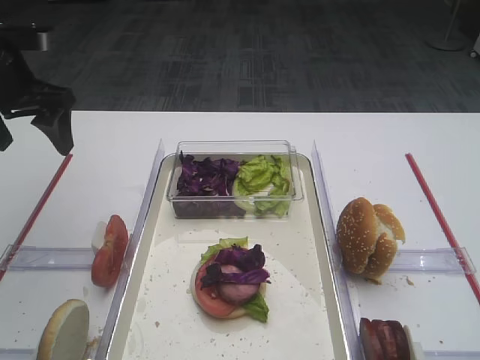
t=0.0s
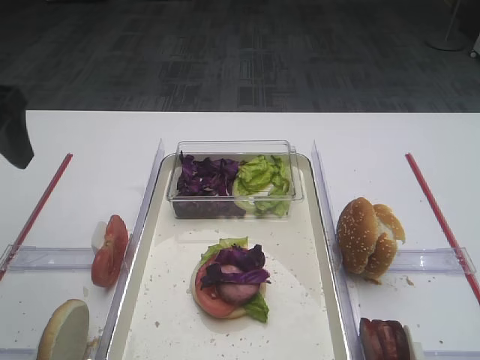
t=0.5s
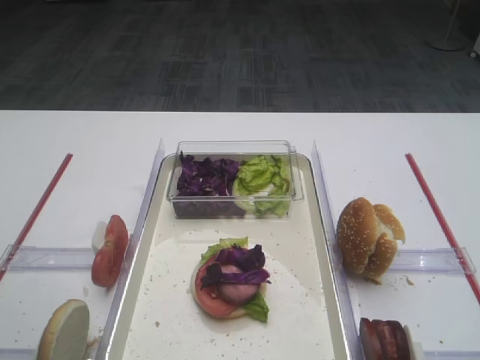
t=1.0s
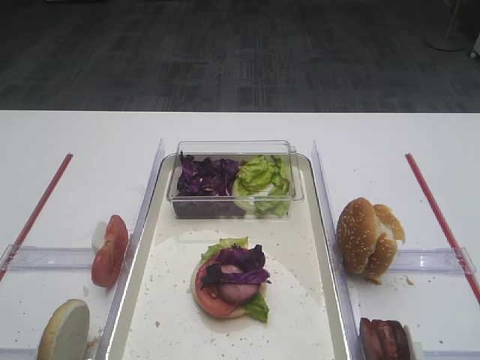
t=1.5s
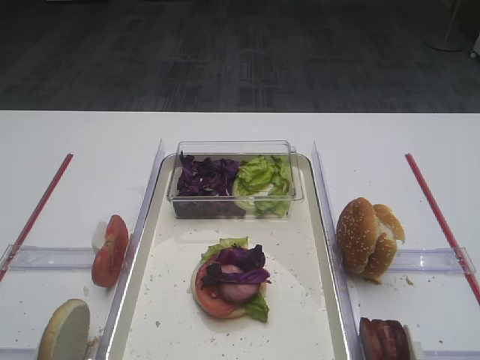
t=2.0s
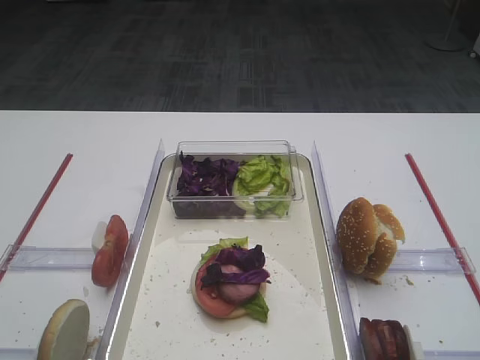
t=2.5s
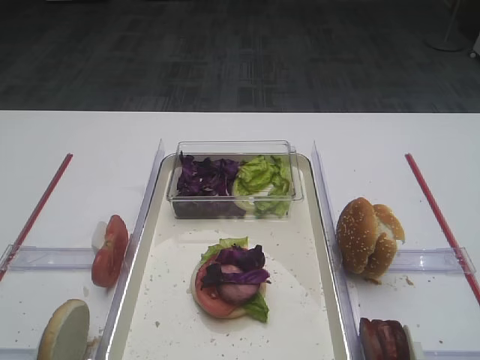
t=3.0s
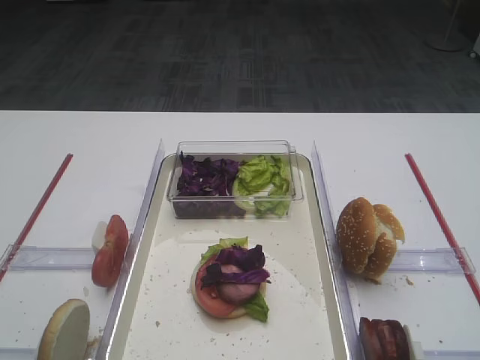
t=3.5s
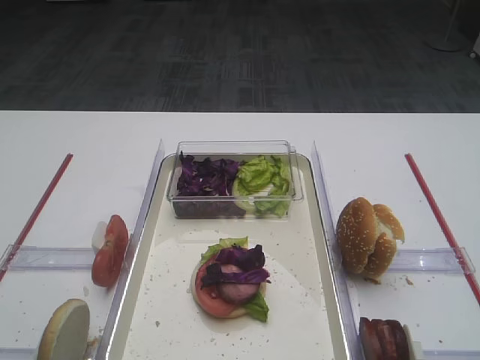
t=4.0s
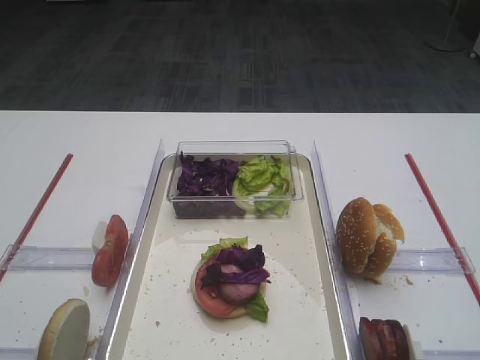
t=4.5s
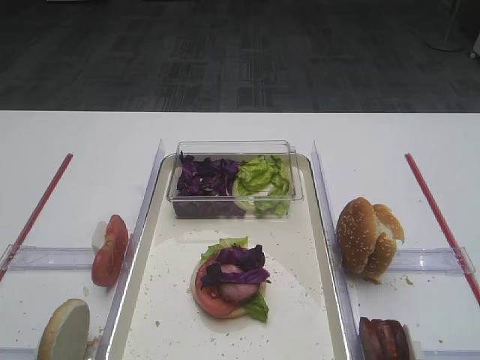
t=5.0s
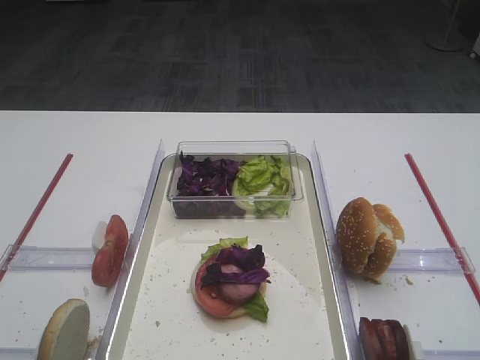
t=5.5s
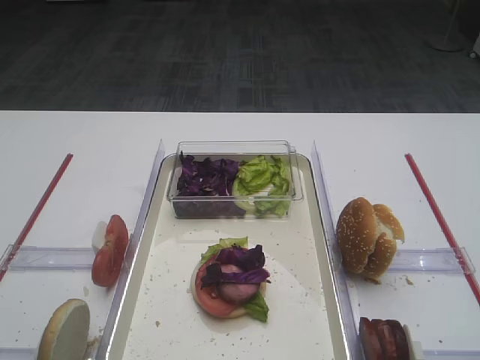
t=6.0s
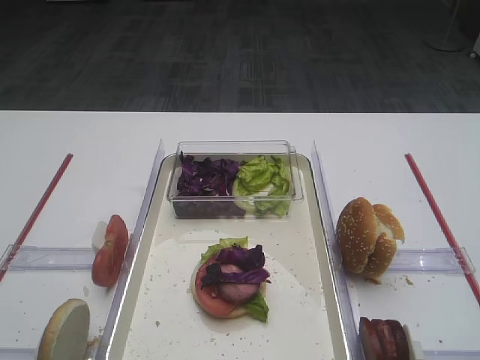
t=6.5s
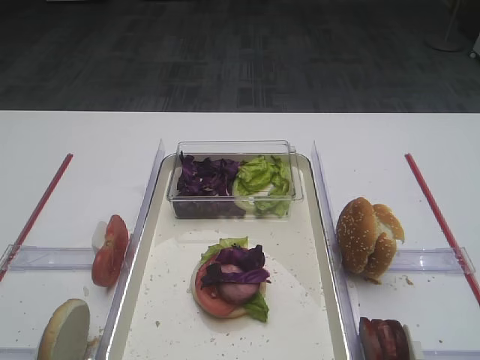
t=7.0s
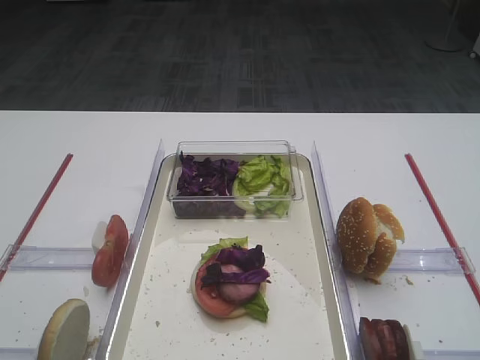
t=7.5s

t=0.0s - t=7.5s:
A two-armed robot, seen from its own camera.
t=0.0s - t=2.0s: The left gripper is displaced backward by roughly 35 cm.
t=4.0s - t=7.5s: Both grippers stay put.

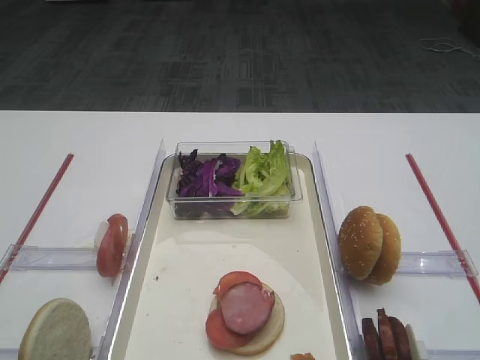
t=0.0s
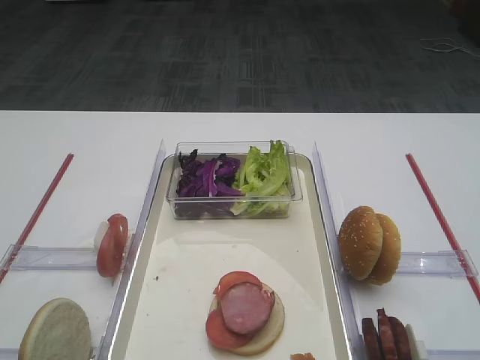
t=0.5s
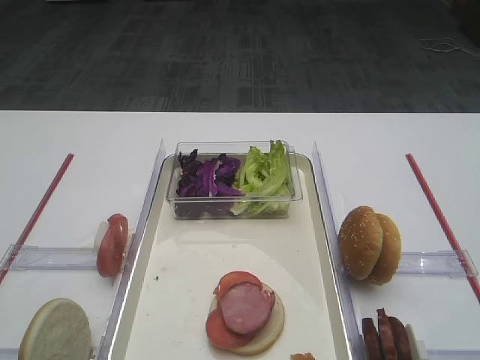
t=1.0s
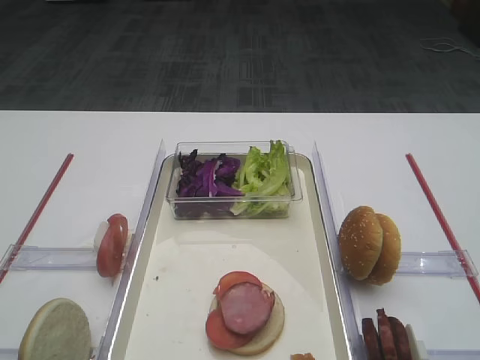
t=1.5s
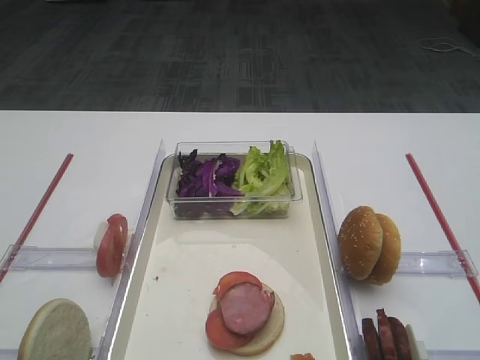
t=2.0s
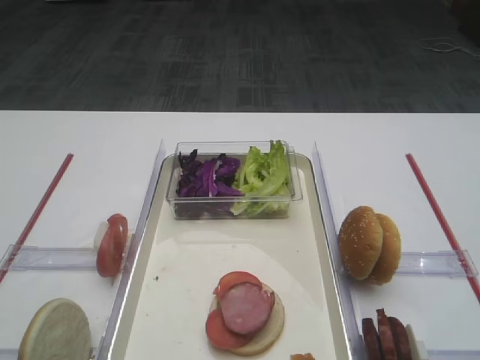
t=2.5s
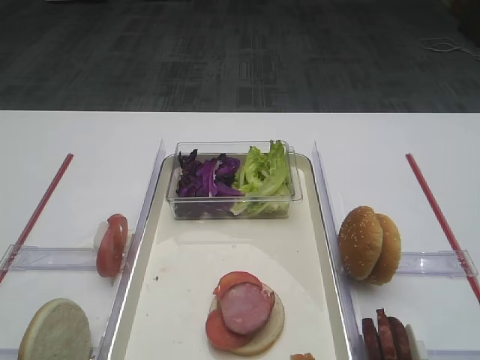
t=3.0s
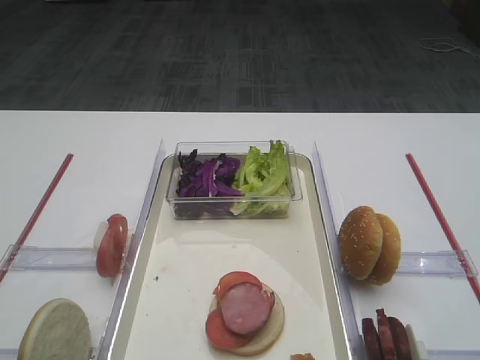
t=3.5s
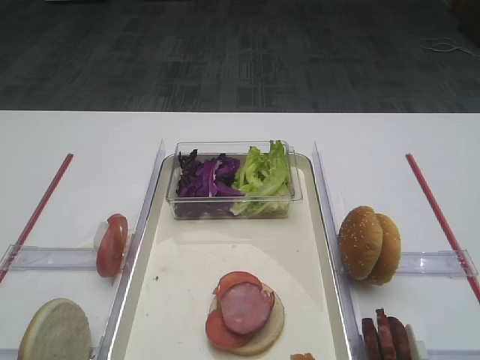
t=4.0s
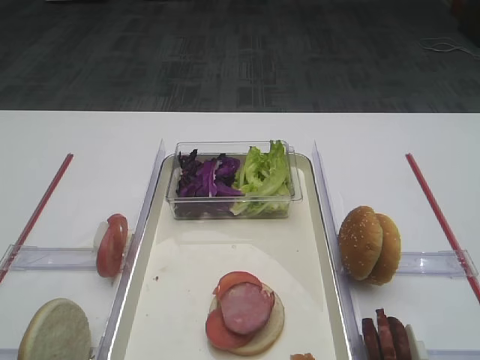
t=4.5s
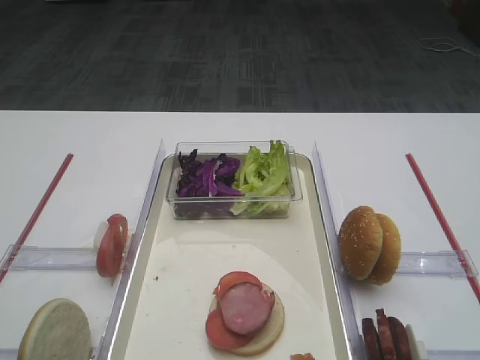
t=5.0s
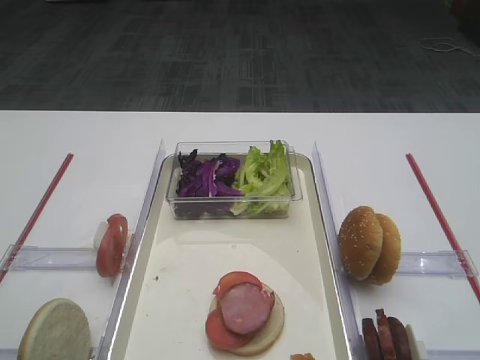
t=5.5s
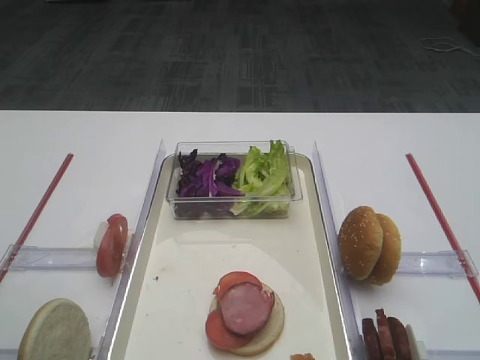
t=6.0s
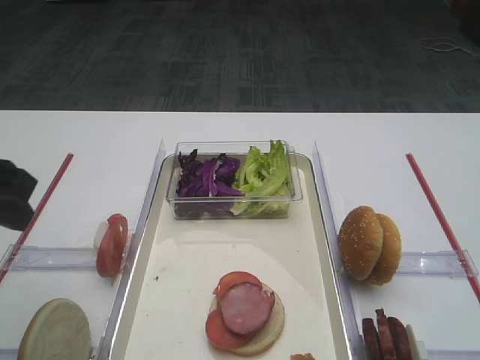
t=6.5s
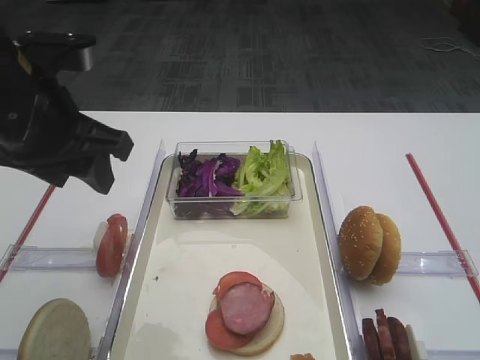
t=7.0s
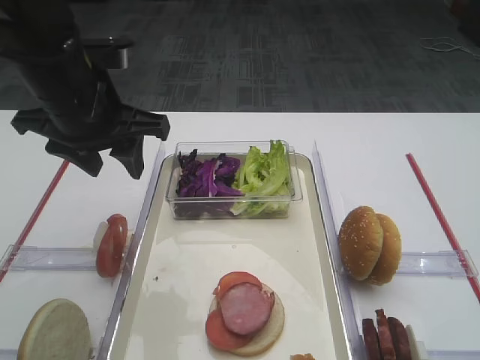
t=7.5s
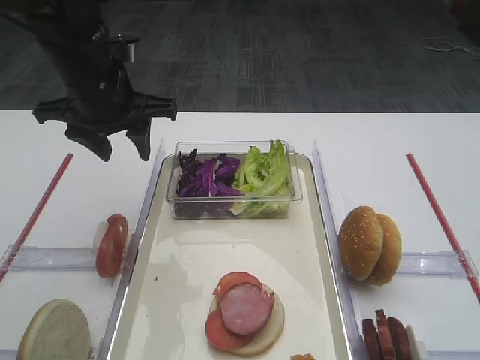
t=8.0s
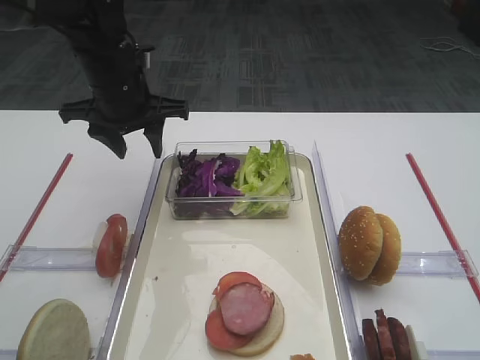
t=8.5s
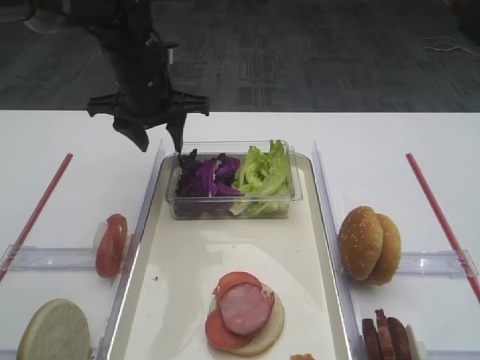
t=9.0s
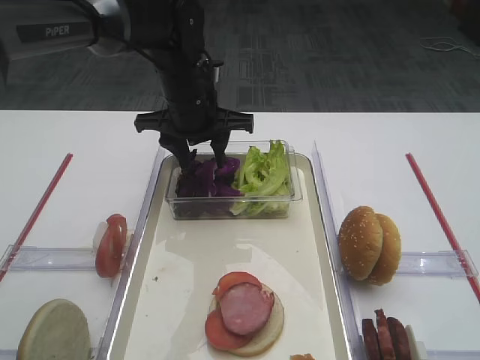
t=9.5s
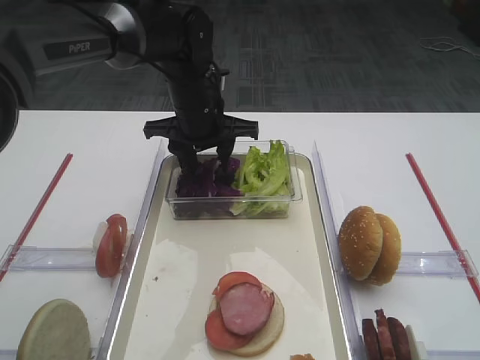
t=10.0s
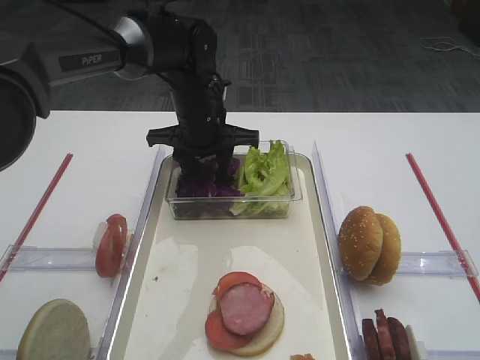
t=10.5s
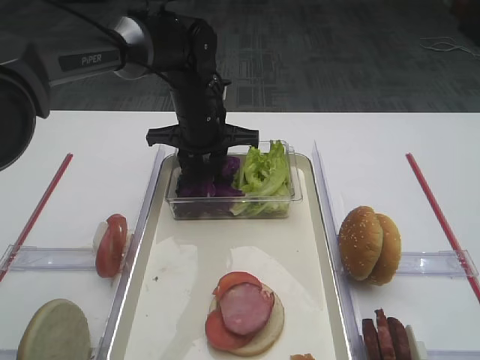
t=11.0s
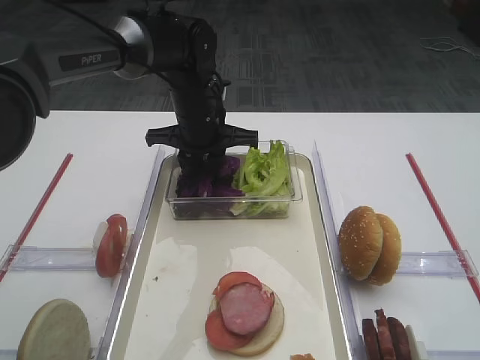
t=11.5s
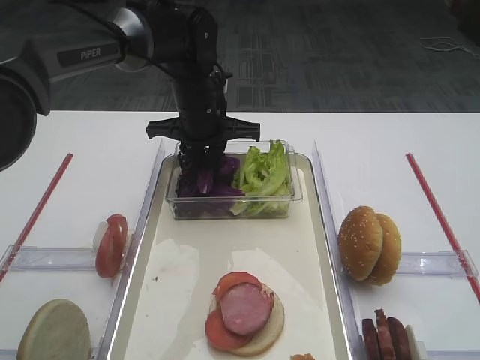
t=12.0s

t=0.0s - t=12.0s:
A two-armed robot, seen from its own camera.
t=2.0s - t=4.0s: The two grippers keep their place.
t=6.0s - t=8.0s: The left gripper moves forward and to the right, roughly 25 cm.
t=8.0s - t=10.0s: The right gripper closes up. The left gripper goes approximately 15 cm to the right, forward and downward.
t=10.0s - t=12.0s: The left gripper closes.

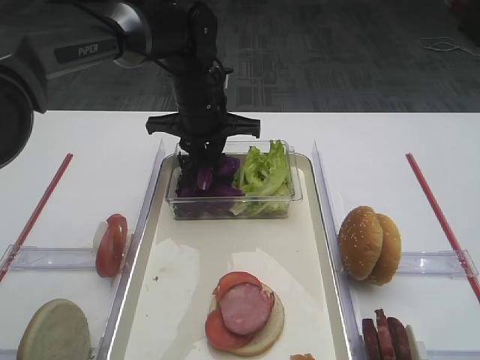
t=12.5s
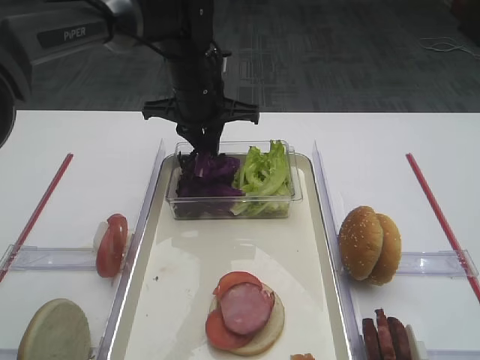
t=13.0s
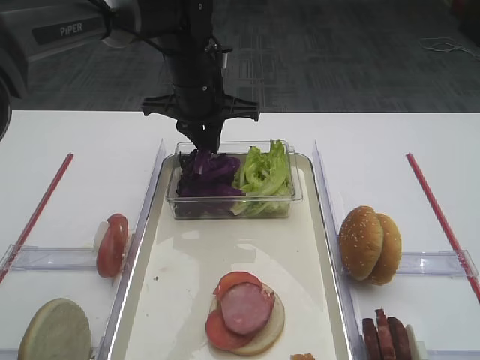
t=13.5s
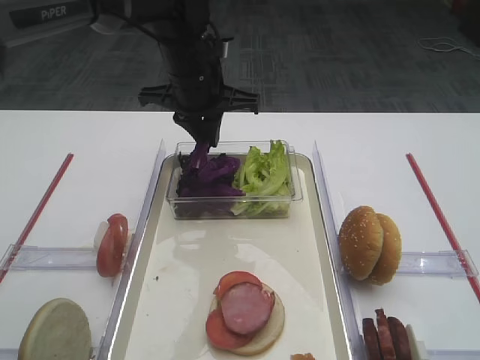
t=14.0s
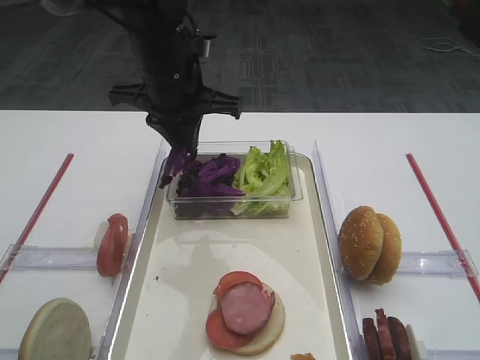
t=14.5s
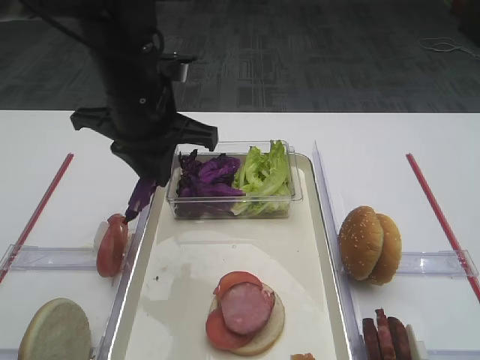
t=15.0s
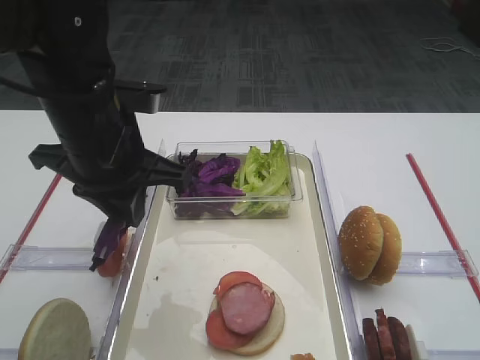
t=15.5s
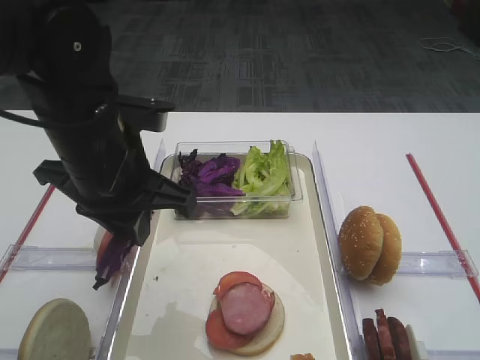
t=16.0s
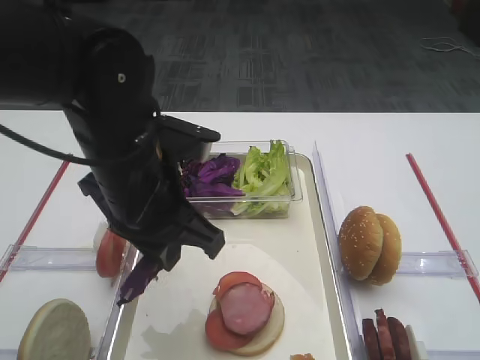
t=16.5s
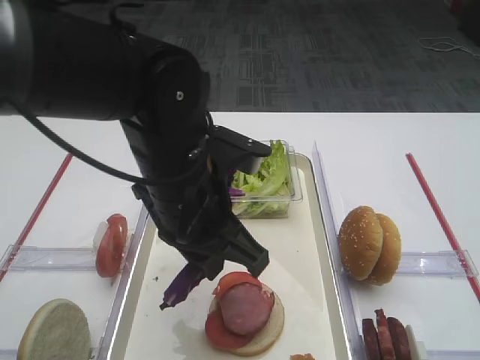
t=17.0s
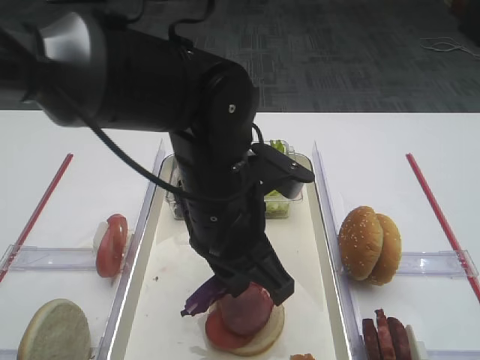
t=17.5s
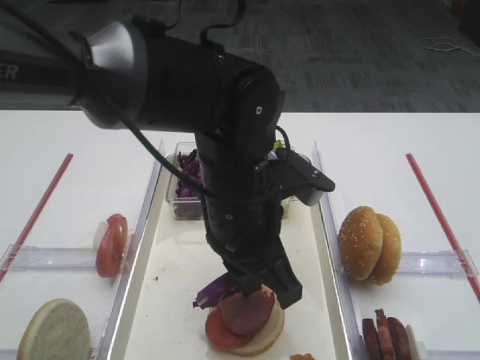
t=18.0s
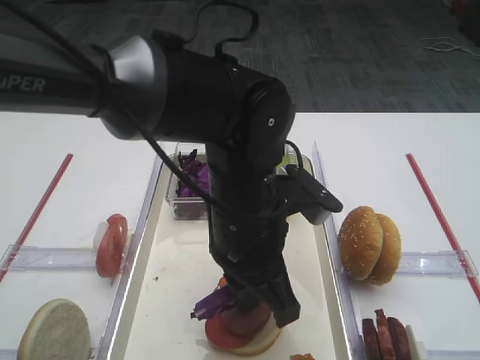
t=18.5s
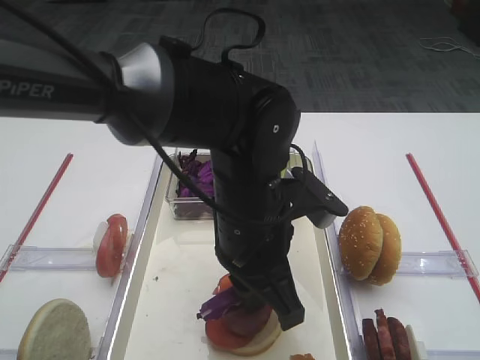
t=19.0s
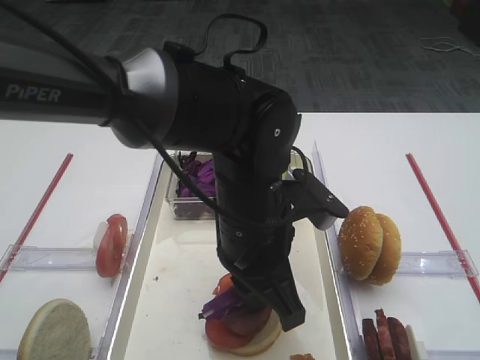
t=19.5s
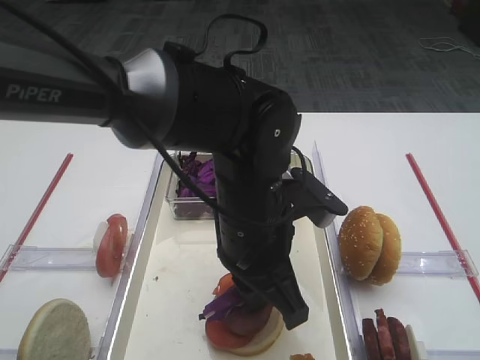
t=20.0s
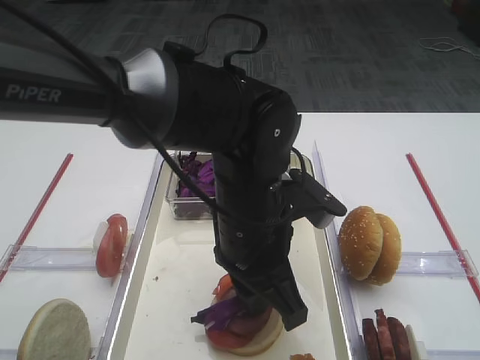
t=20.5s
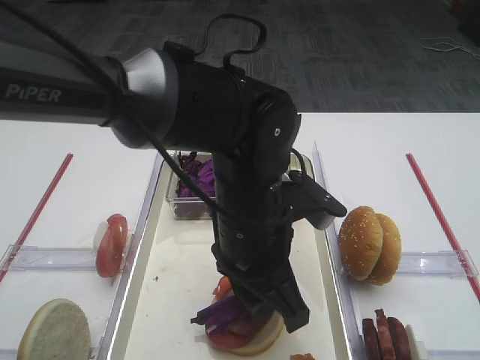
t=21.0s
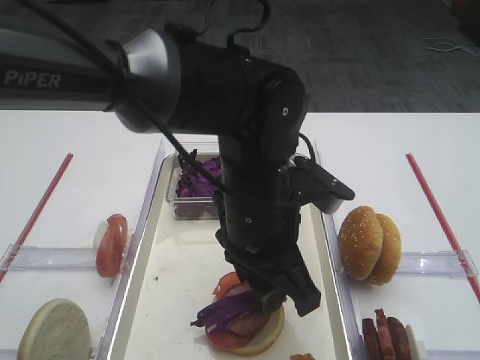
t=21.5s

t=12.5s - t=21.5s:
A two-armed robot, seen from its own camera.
t=12.5s - t=14.5s: The left gripper goes some 10 cm upward and backward.
t=14.5s - t=17.0s: The left gripper goes some 15 cm backward.
t=17.0s - t=19.5s: The left gripper shifts roughly 5 cm to the right.
t=19.5s - t=21.5s: The left gripper opens up.
